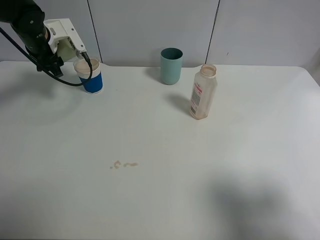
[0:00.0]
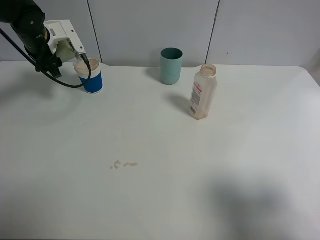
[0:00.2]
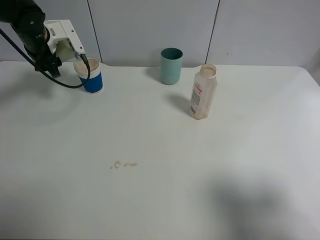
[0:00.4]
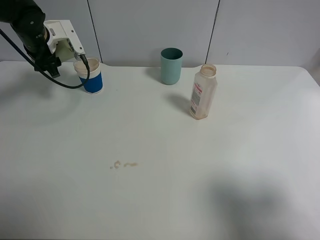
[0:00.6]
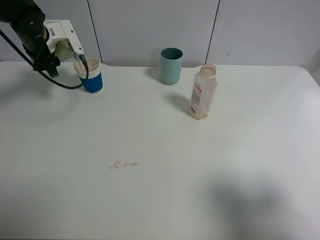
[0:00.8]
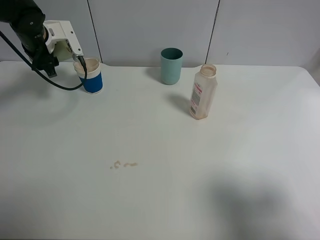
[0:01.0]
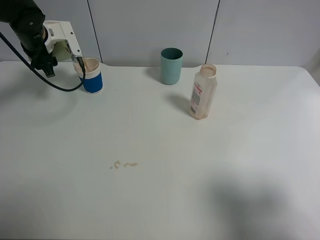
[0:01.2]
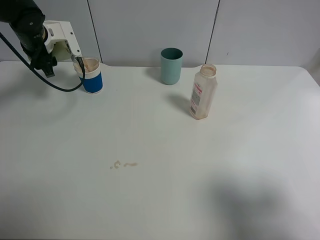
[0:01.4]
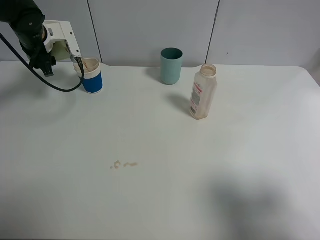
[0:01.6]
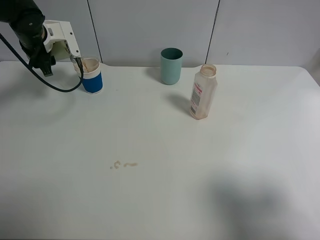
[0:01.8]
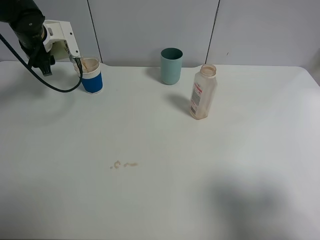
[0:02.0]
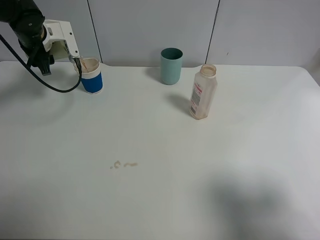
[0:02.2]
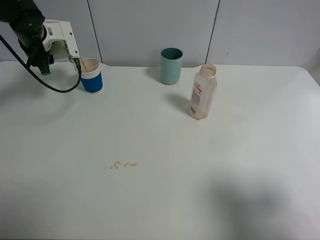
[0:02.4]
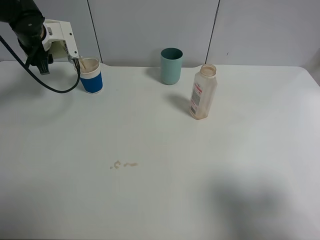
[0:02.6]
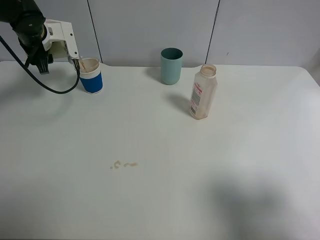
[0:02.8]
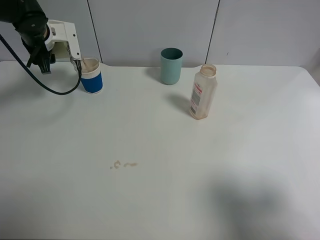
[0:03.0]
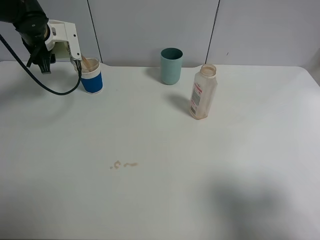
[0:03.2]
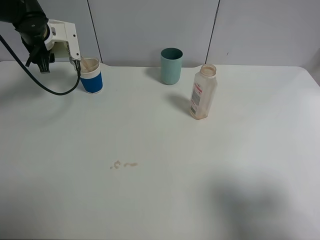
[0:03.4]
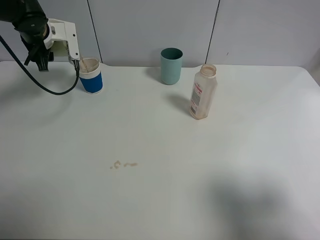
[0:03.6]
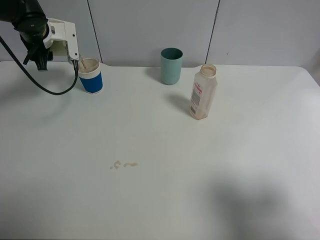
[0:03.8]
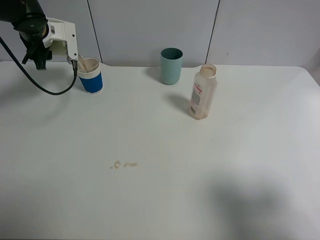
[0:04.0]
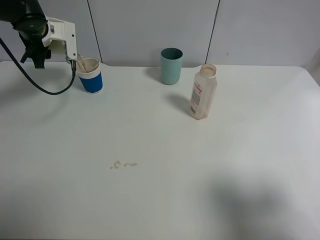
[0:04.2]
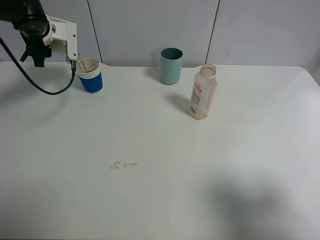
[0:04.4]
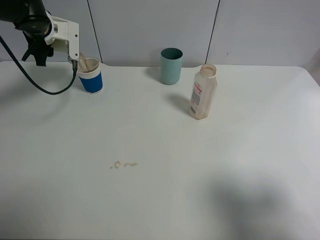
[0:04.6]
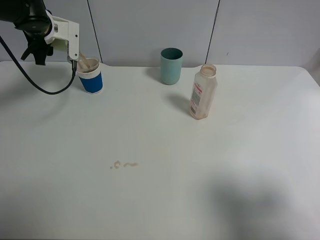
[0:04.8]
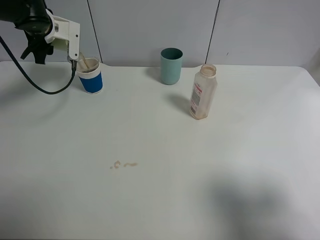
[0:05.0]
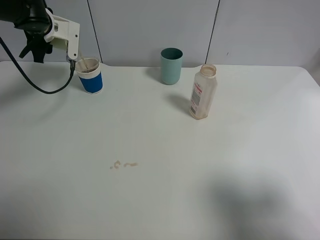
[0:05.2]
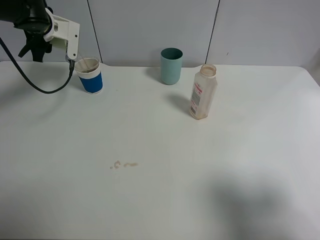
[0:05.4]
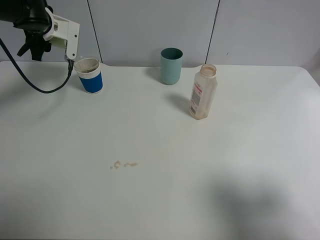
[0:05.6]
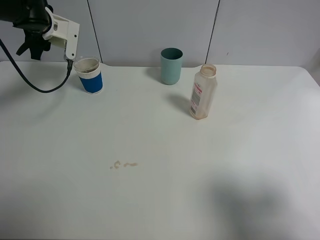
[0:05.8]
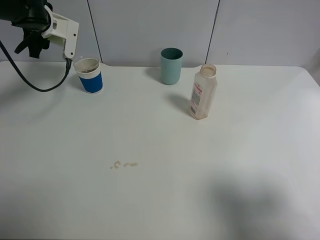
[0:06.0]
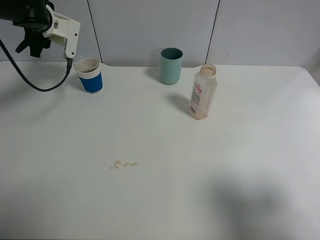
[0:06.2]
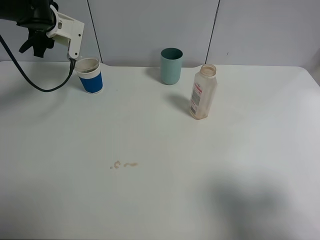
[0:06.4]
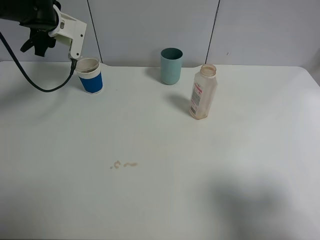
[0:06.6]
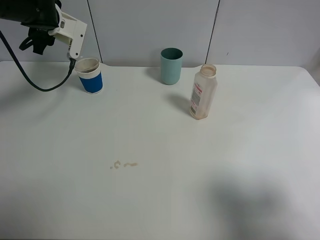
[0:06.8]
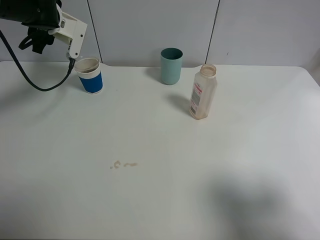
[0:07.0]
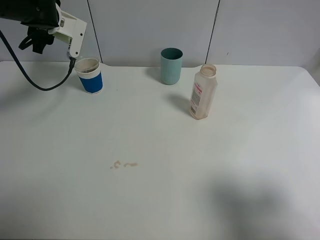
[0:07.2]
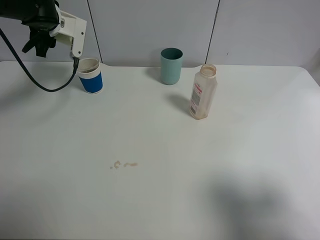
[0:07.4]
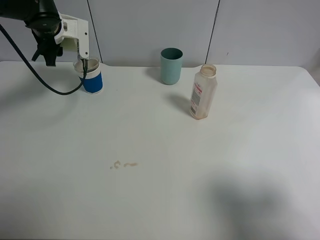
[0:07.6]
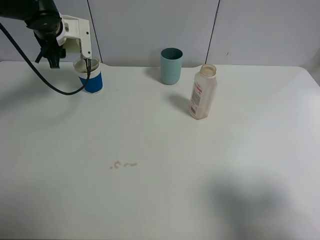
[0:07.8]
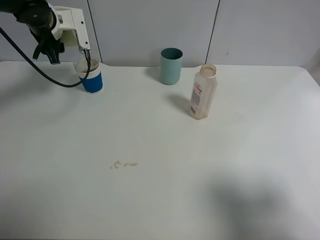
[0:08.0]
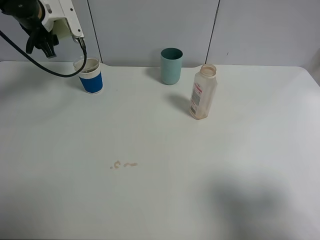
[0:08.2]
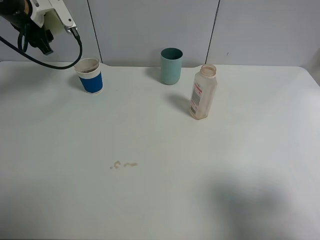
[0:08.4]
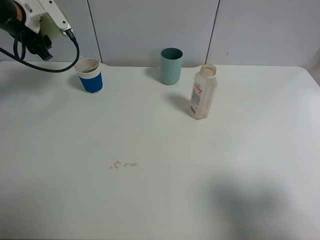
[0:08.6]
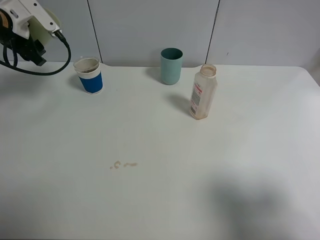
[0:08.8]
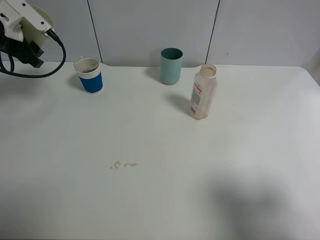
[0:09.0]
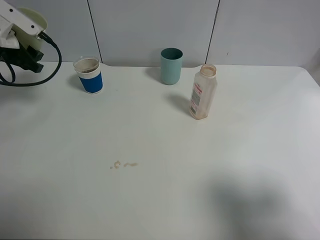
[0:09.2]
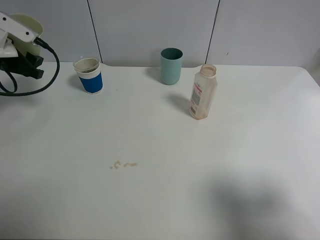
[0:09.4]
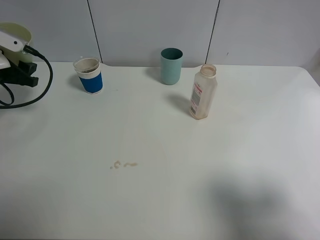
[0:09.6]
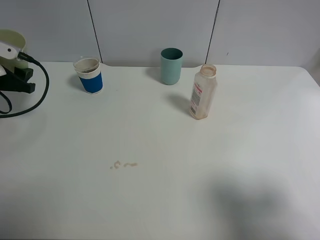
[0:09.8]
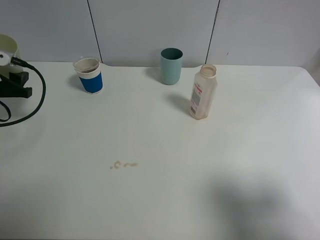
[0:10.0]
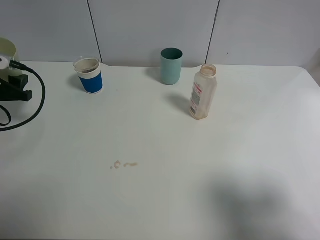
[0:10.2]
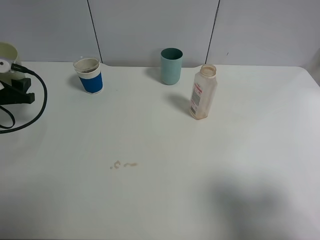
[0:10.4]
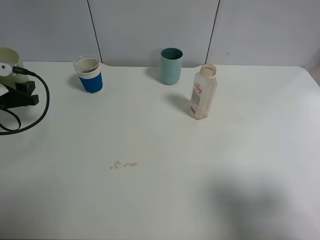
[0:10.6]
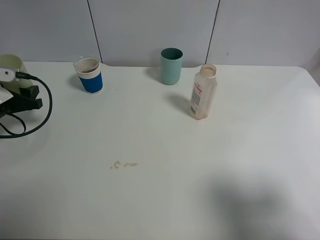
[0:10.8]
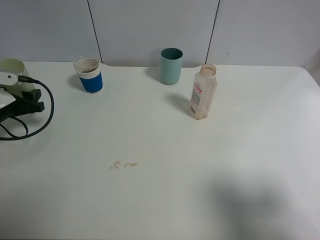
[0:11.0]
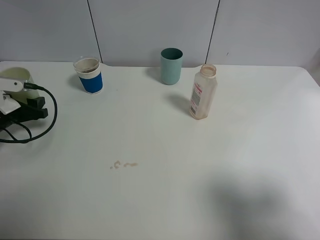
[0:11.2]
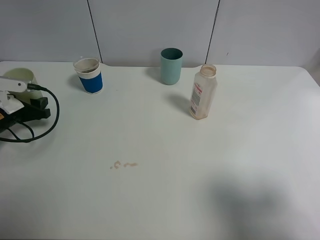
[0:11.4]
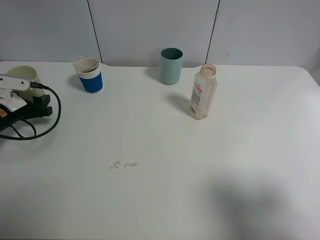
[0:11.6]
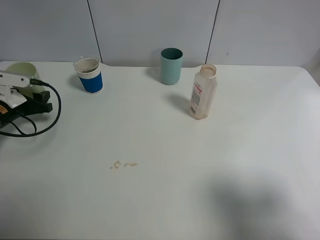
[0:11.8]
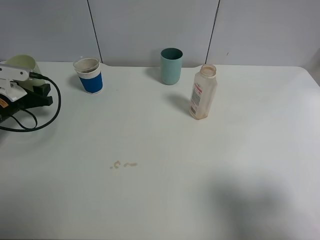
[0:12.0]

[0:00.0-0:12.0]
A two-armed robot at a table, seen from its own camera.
Task of the whole recording: use a clamp to hold the bottle of the drink, pour the beverage into a random cup, then clamp the cup containing the drink and pour the drink into another random cup.
Step, 0:00.0 to 0:08.6: Pour the drink into the paper cup with left gripper.
0:00.0 to 0:03.0: The grippers move only a little.
0:03.0 to 0:04.4: The grippers make only small movements.
0:04.4 to 0:06.0: The grippers make only small movements.
0:06.0 to 0:07.6: The grippers make only small movements.
0:07.6 to 0:09.0: The left gripper goes roughly 10 cm to the left and backward.
0:09.0 to 0:10.4: The left gripper shifts roughly 15 cm backward and downward.
0:10.4 to 0:12.0: The left gripper heads downward, covering about 5 cm.

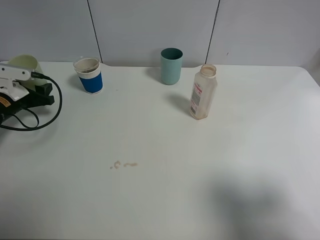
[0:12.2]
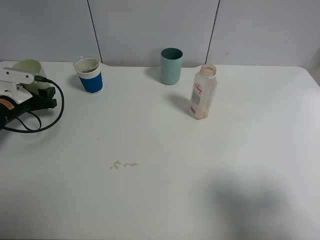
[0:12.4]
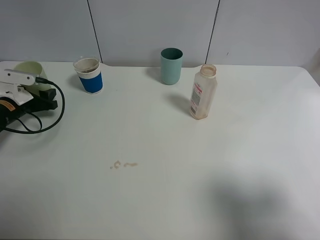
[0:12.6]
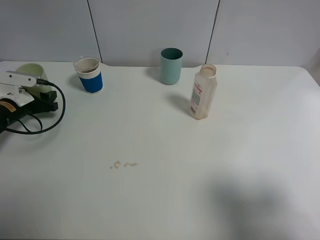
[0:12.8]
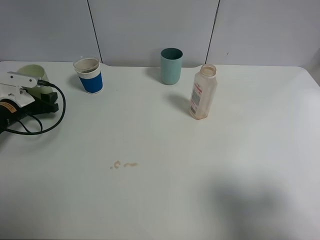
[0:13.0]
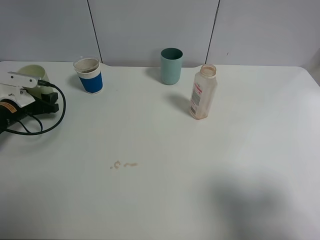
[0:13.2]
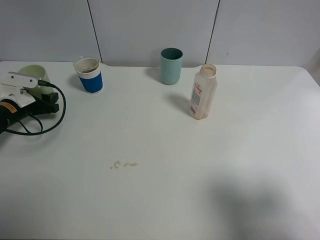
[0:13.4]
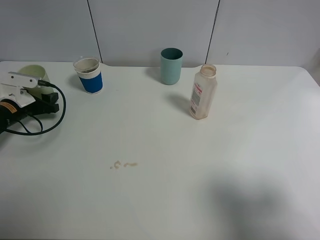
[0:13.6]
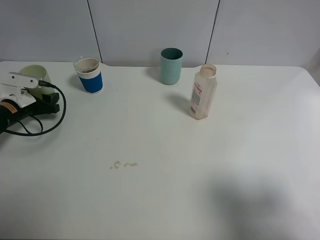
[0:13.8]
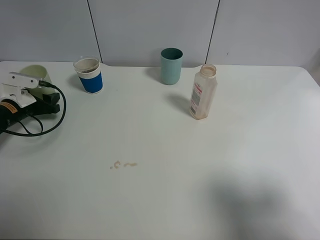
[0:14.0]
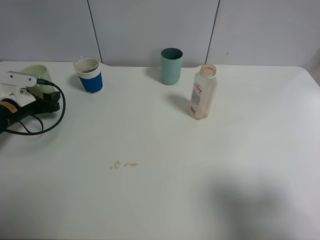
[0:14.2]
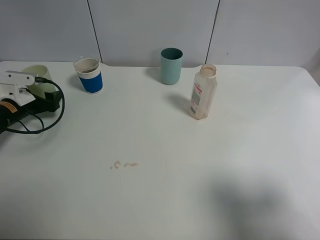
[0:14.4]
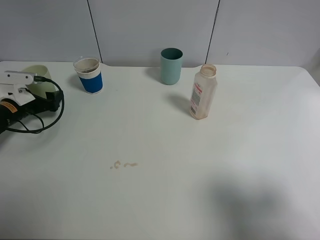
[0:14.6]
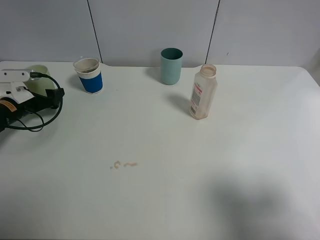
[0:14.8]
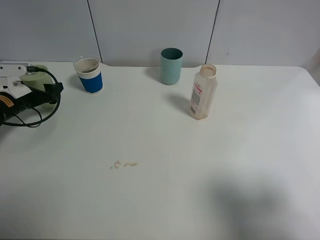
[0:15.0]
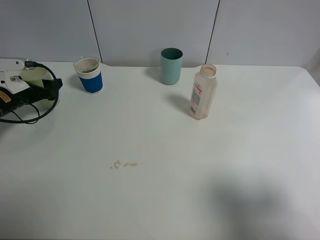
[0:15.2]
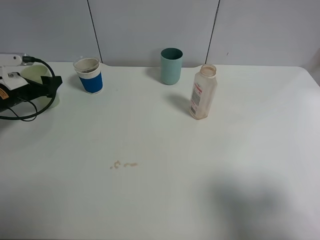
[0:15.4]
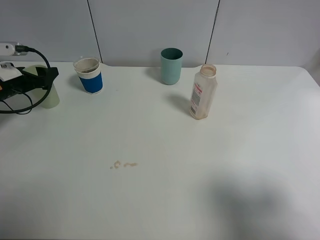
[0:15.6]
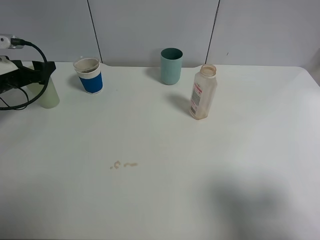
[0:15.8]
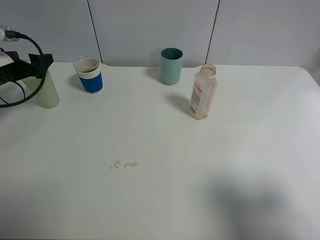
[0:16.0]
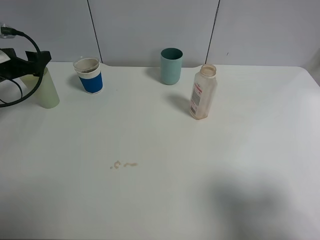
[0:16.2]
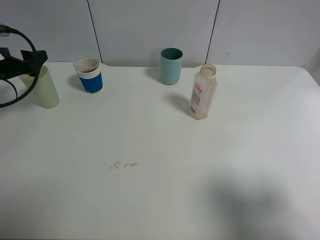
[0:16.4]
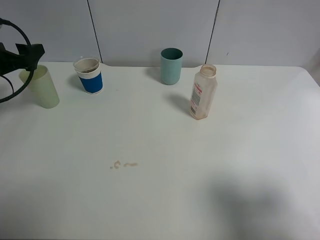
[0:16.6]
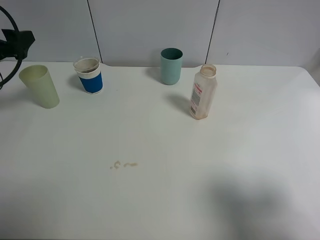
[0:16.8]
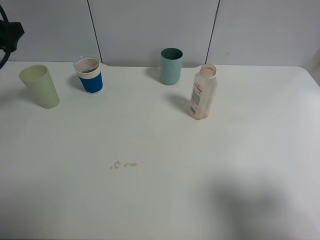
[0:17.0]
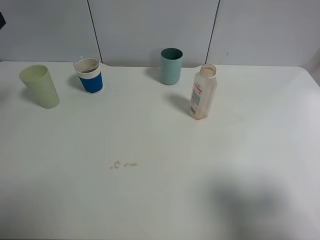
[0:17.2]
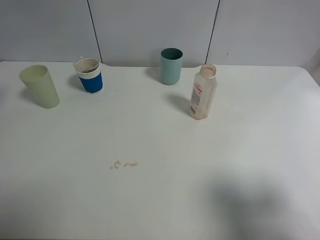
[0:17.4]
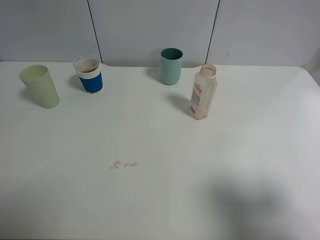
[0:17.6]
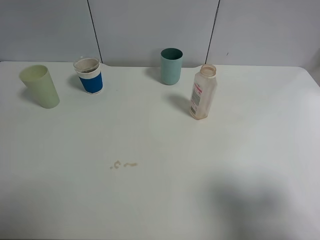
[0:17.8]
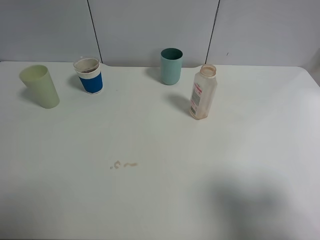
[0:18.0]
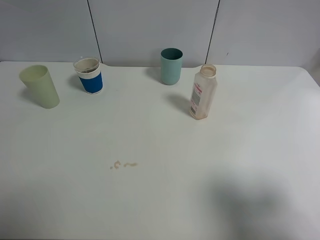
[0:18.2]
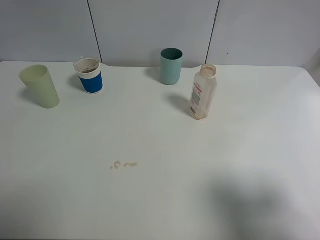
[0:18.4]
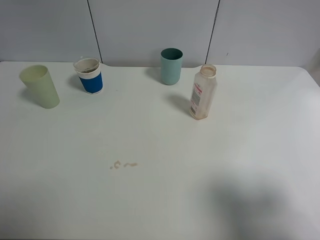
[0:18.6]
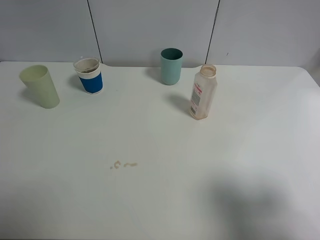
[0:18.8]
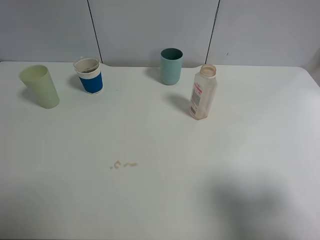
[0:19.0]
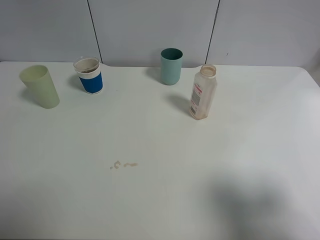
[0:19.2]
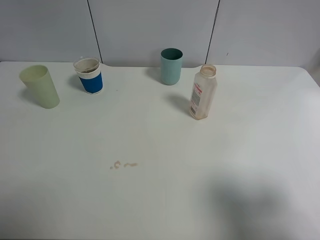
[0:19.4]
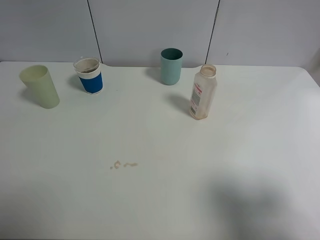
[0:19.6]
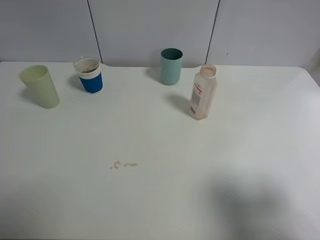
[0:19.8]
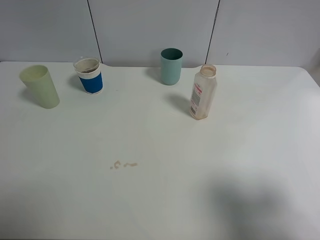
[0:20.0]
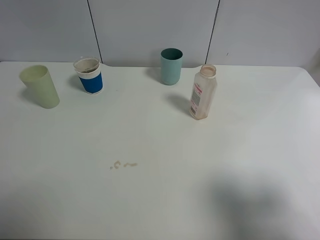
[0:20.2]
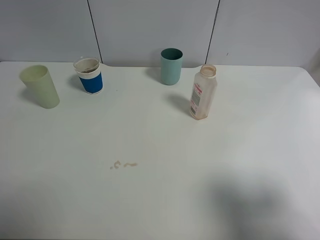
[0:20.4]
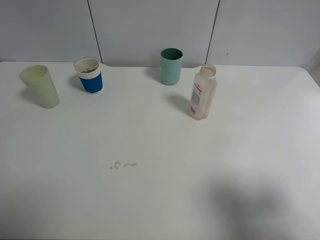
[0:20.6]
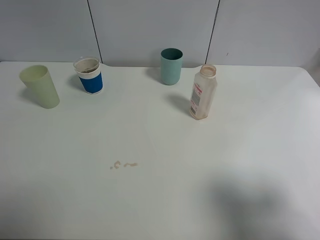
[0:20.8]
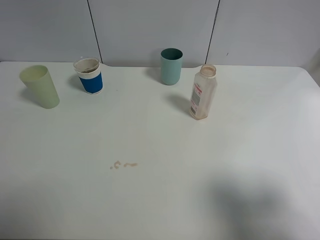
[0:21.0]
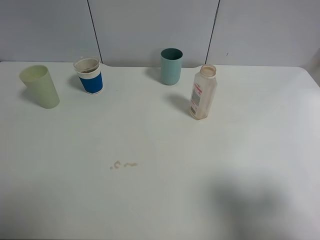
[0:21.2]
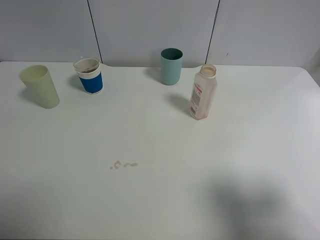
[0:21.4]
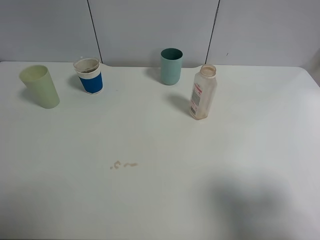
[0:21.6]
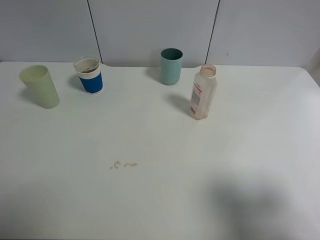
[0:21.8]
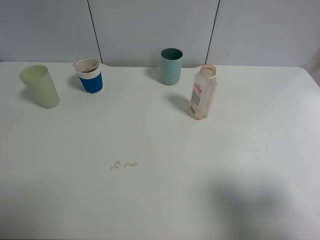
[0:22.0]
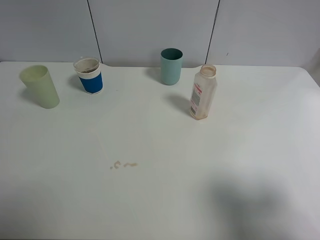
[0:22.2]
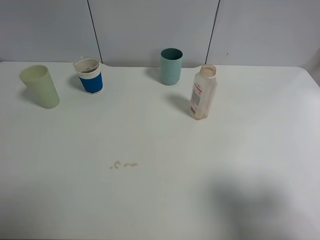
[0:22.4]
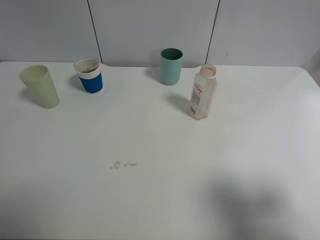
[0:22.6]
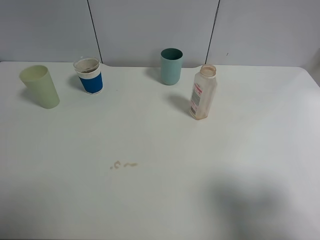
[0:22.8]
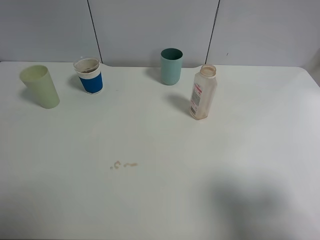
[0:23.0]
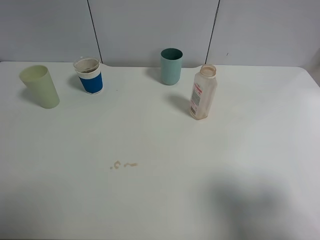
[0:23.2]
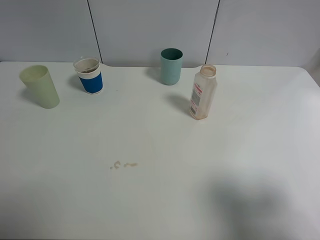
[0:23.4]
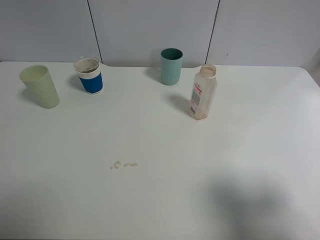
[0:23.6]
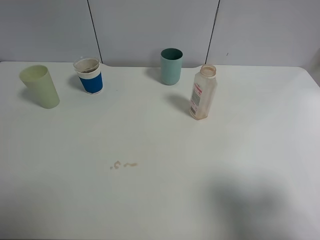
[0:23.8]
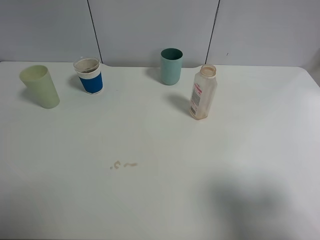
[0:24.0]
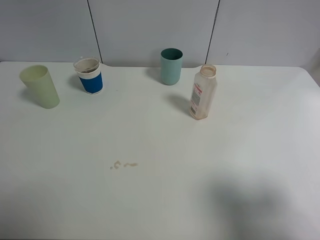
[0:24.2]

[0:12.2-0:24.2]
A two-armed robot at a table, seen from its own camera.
Task of the whole recording: use a clamp to hold the bottle of the drink, pour the beverage into a random cup, then clamp the cup containing the drink and pour the drink into another random cup.
Step, 0:12.2 to 0:15.6: Place the green plastic cup on the table with left gripper.
0:12.2 to 0:13.8: The grippers make only small movements.
0:13.8 to 0:15.2: The left gripper opens.
0:15.2 to 0:16.6: The left gripper goes about 10 cm upward.
0:16.6 to 0:18.2: The left gripper goes roughly 20 cm backward and upward.
